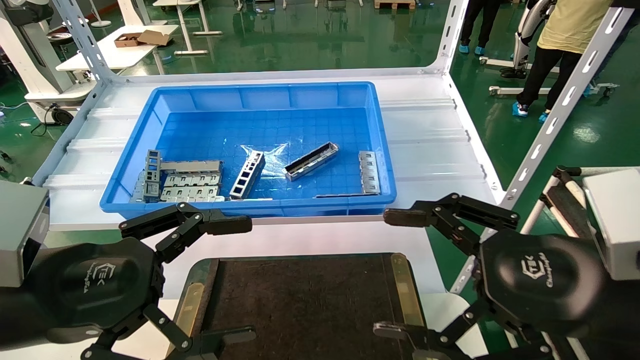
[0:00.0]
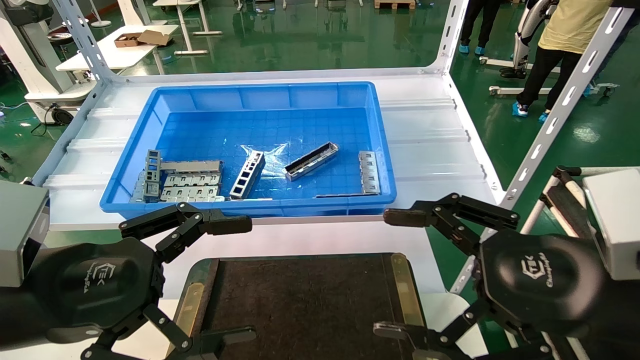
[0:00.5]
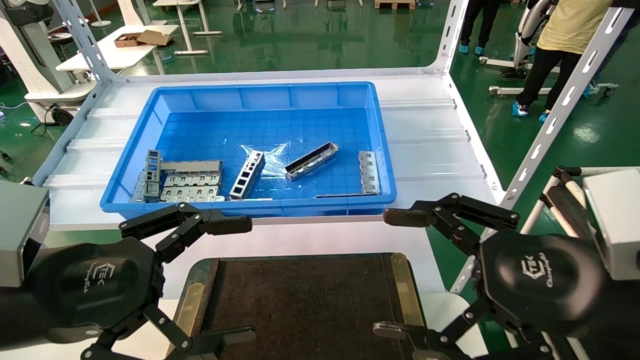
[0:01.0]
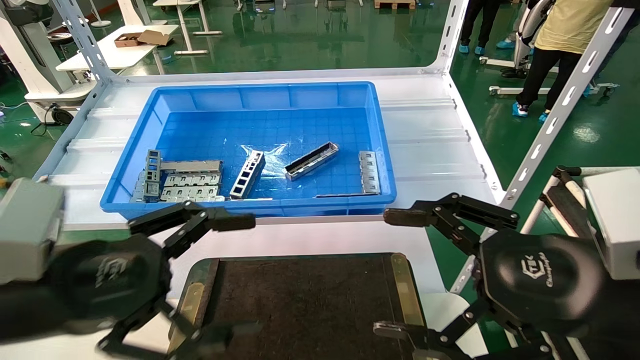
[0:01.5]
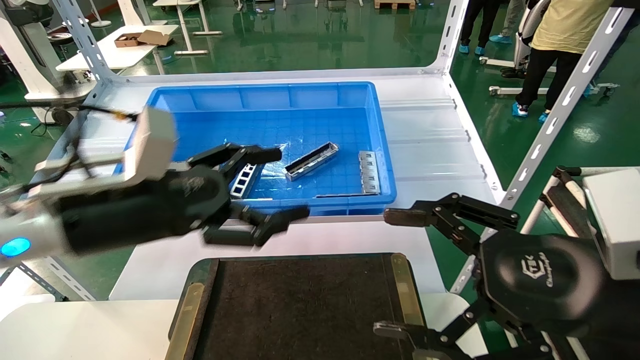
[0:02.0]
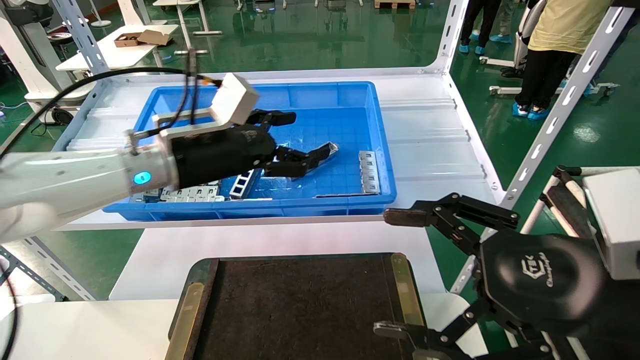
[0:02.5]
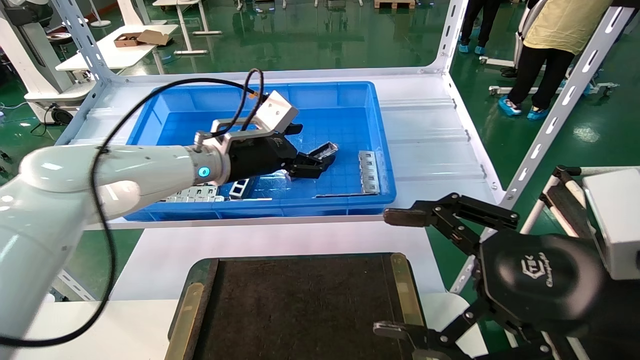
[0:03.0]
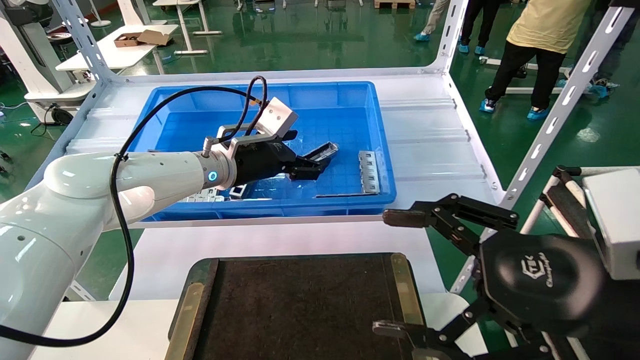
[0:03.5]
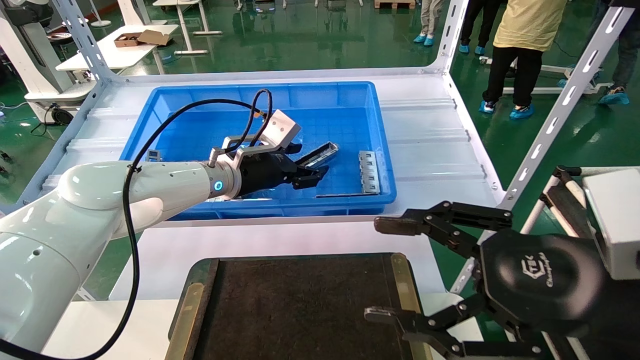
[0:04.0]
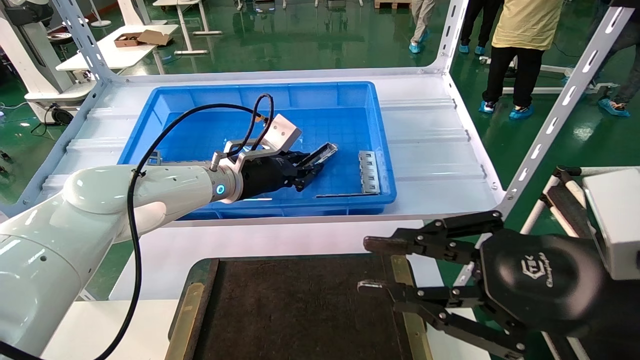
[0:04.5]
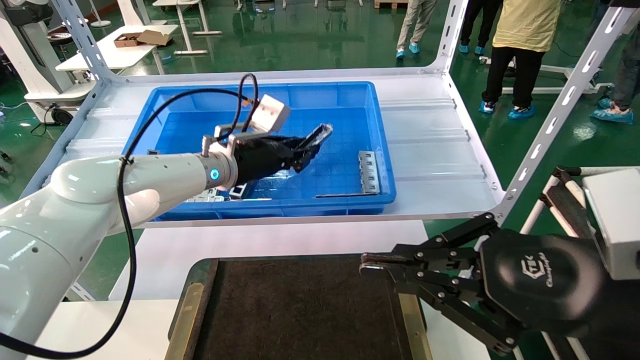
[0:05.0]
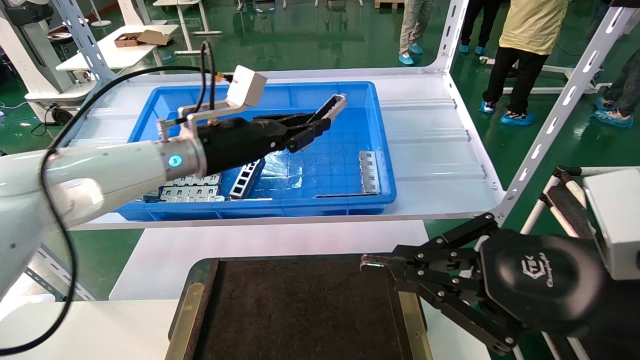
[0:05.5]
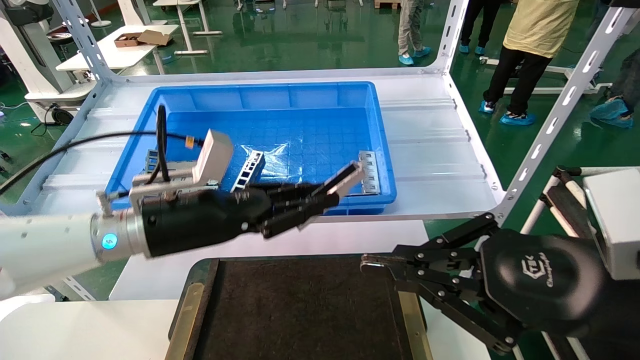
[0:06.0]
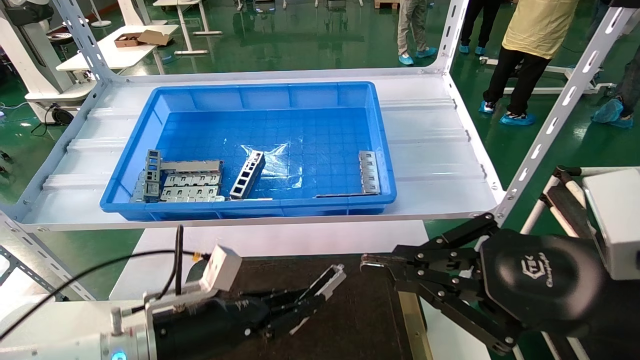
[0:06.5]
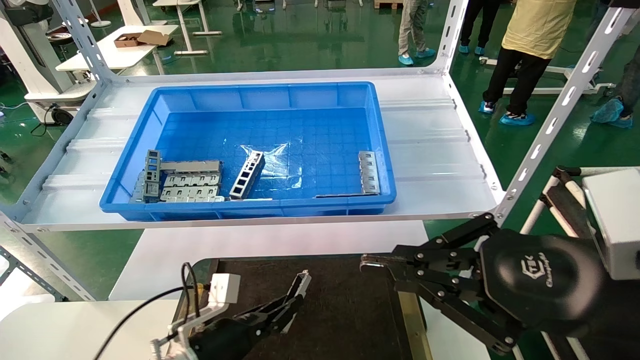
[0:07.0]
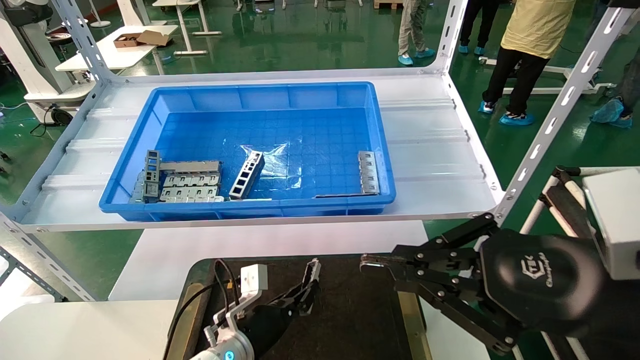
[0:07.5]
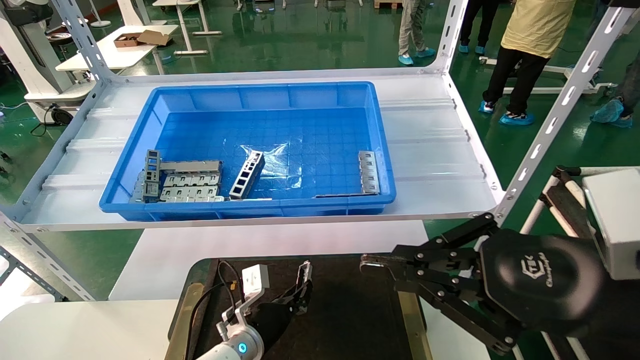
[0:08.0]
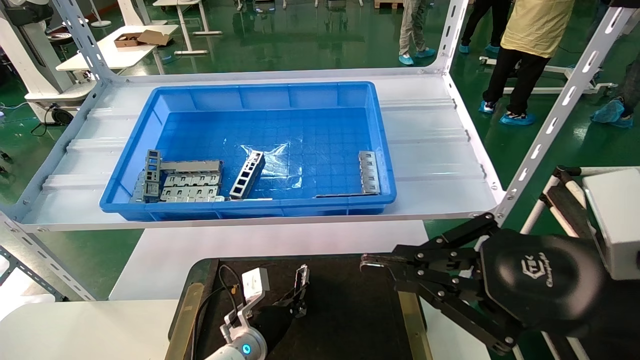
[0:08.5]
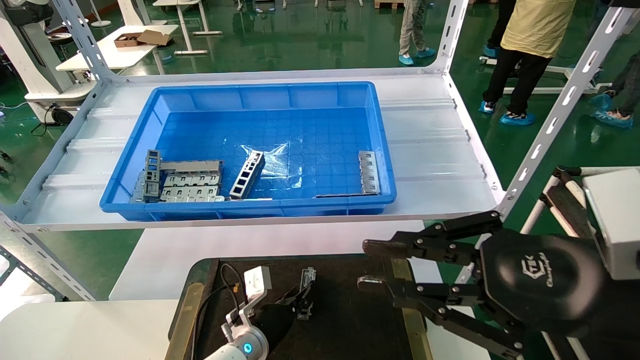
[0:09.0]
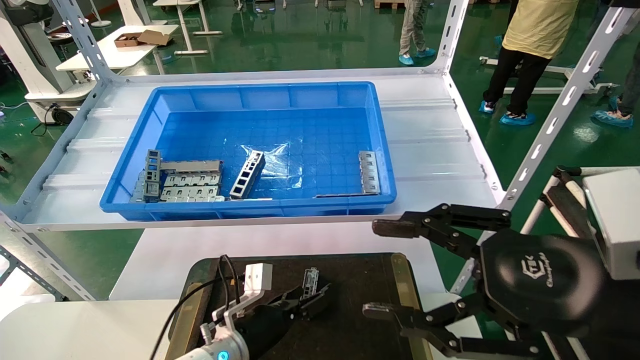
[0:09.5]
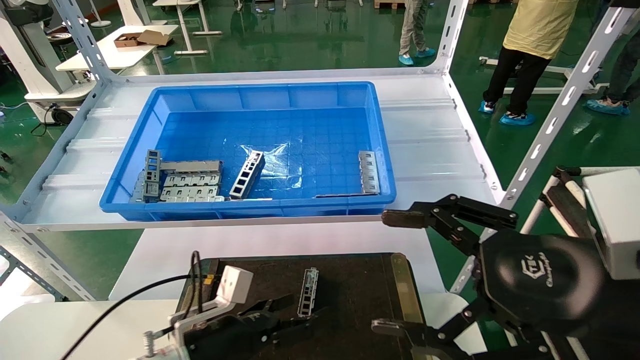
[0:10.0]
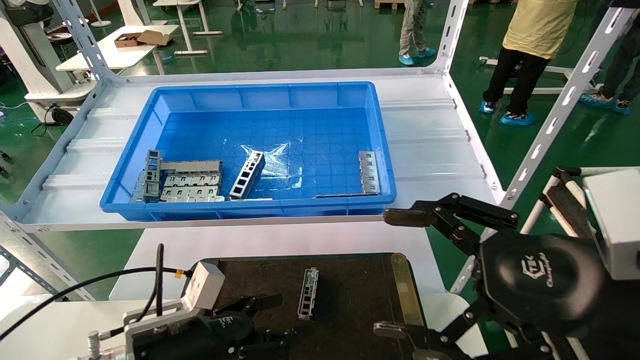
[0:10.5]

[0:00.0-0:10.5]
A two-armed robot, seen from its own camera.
Task of the whole recording: Grasp the part with one hand and place it on the black container.
Step, 0:02.0 to 0:05.0: Pick up the front USB bracket from the feeding area.
Step, 0:05.5 to 0:09.0: Place the front USB bracket into the box.
0:00.0 to 0:02.0: The left gripper travels forward by some 10 cm.
0:02.0 to 0:04.0: The left gripper goes about 20 cm forward and to the right.
0:04.0 to 0:06.5: The right gripper closes its fingers; the left gripper moves backward and downward, some 25 cm, and closes its fingers.
0:06.5 to 0:08.5: The left gripper shifts some 20 cm downward, forward and to the right.
0:08.5 to 0:10.5: The right gripper opens up. Meanwhile the left gripper is displaced backward, upward and to the left by about 20 cm, and opens.
